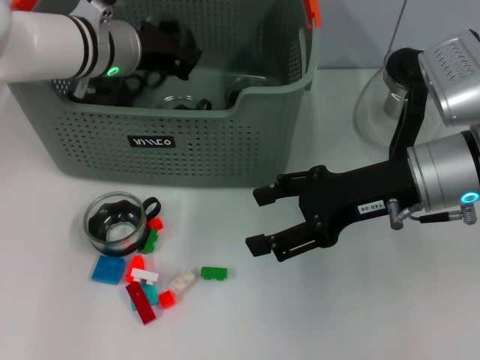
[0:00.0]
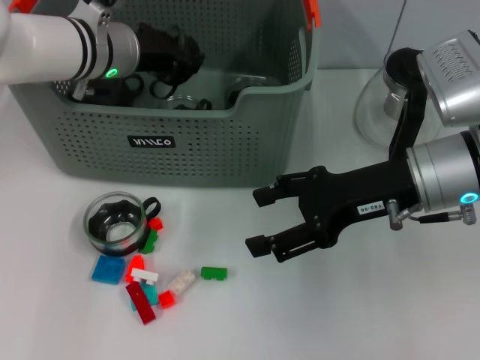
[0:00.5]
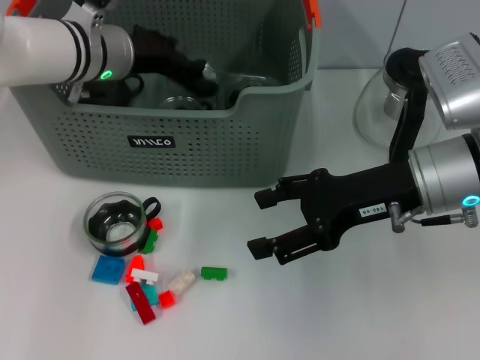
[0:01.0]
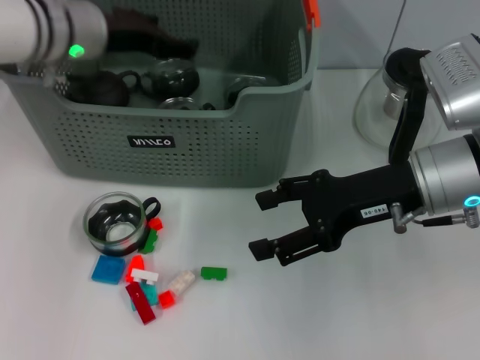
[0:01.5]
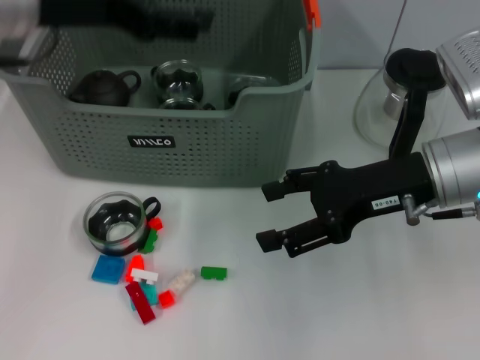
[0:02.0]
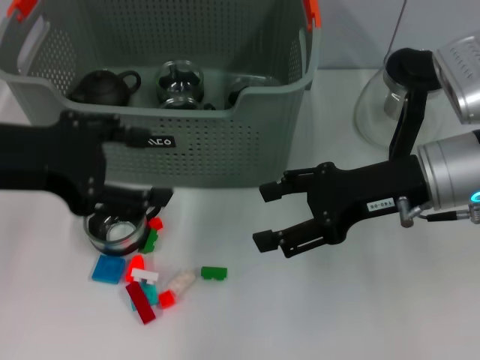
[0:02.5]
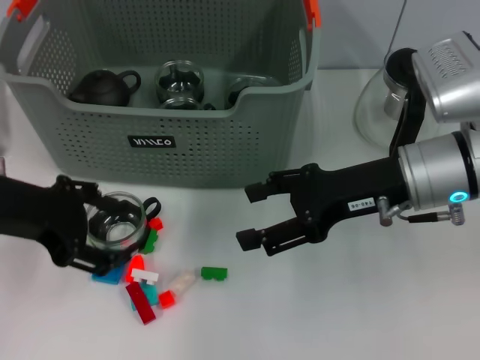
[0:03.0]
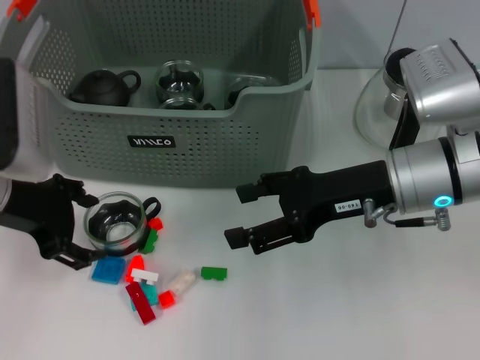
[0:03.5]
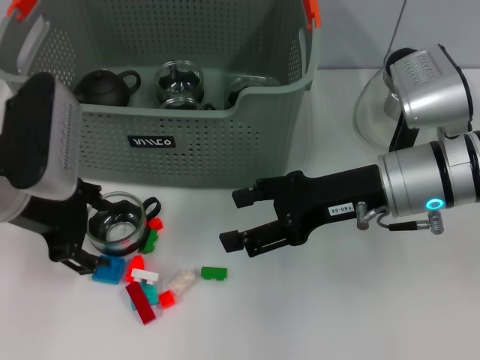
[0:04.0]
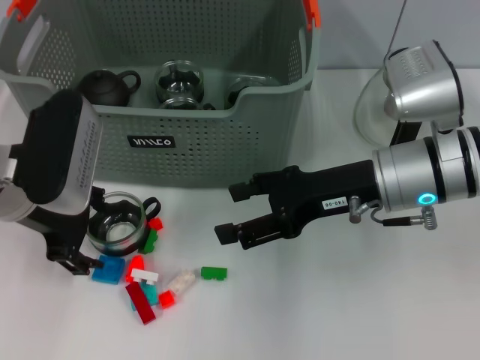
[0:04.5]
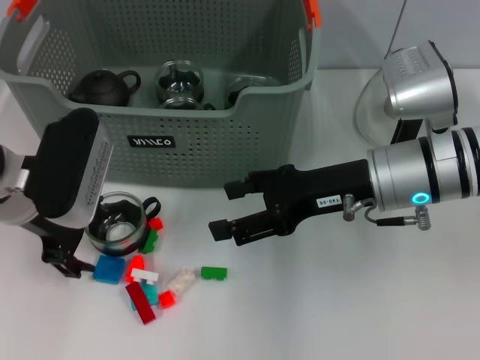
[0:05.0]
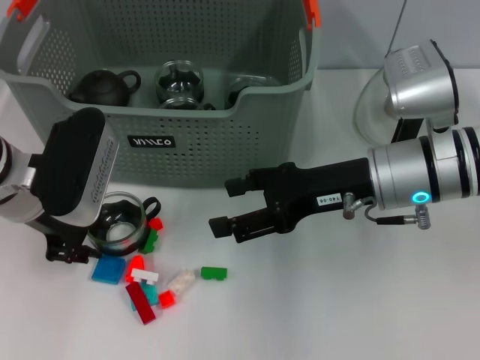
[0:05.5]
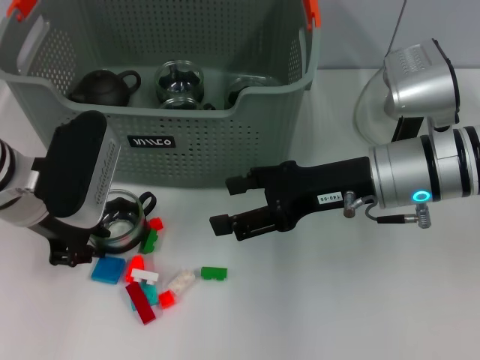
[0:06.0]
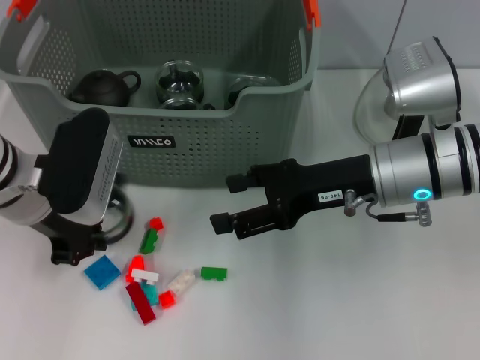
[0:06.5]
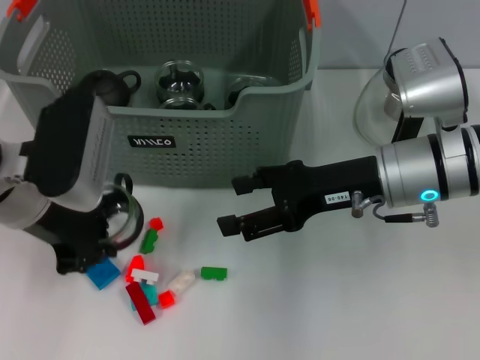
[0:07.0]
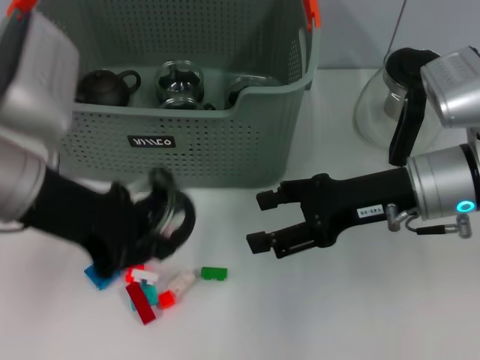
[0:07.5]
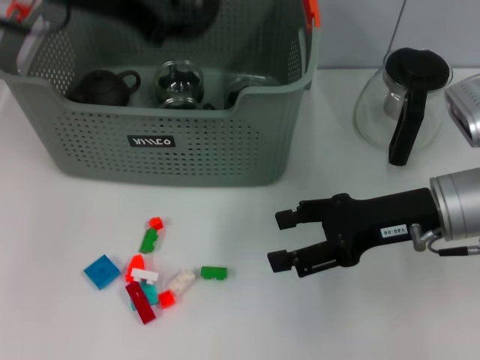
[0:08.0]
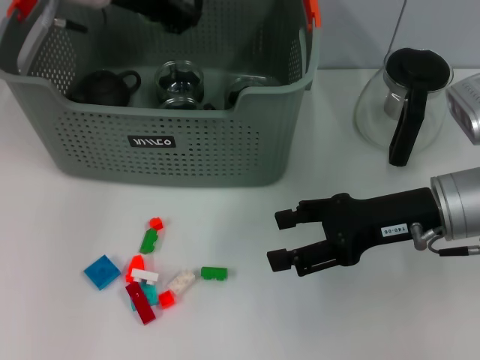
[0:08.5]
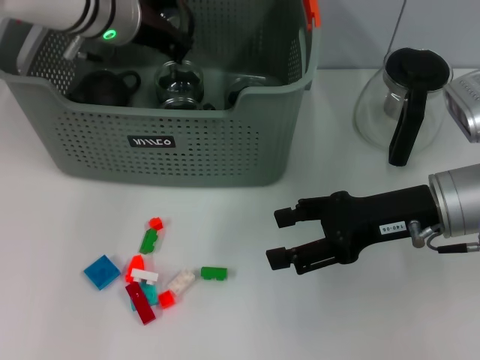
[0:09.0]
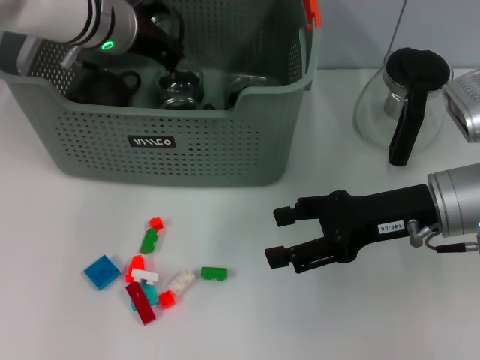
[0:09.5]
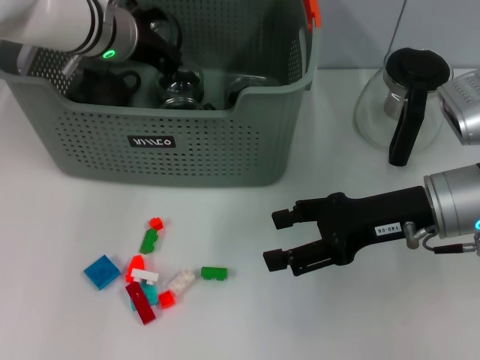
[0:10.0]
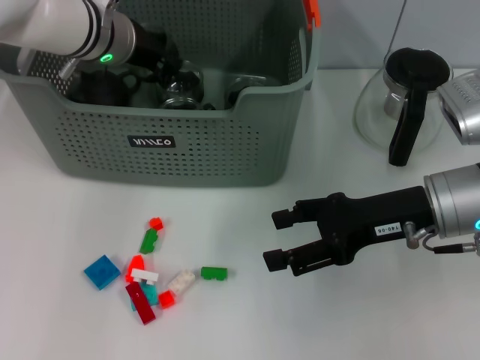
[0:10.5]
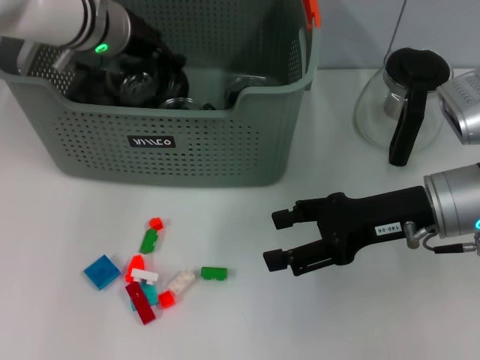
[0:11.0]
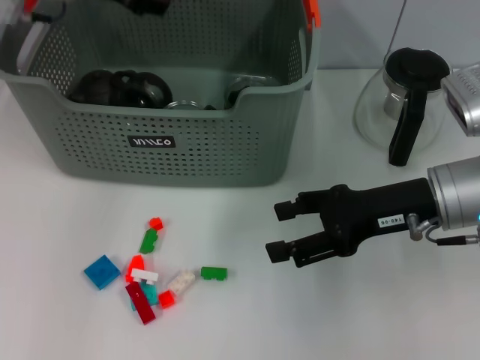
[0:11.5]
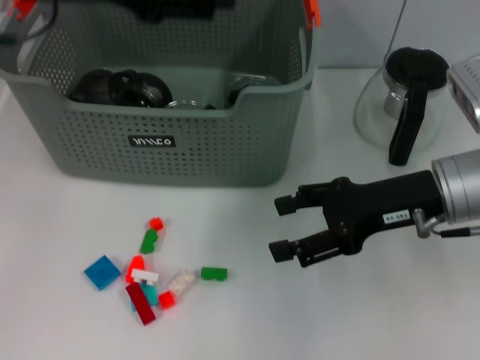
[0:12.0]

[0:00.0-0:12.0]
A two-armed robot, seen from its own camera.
Task of the whole recording: pick up the teacup on the table and place it into the storage bin, pick up the block on the table and place it into the storage bin.
Step, 0:02.0 to 0:06.0: Grasp the cup with left gripper.
Step, 0:06.5 to 0:11.0: Place the cup in the storage box with left gripper.
0:00.0 to 0:02.0: The left gripper goes about 15 cm upward and backward, and opens.
0:02.0 to 0:04.0: The left gripper travels downward by about 10 cm.
0:04.0 to 0:06.0: The left gripper closes up.
0:06.0 to 0:08.0: The right gripper shifts approximately 5 cm to the right. The left gripper goes about 15 cm upward.
0:08.0 to 0:10.0: The left gripper moves downward and forward, about 15 cm.
0:10.0 to 0:12.0: The left gripper shifts approximately 20 cm backward and upward, and opens.

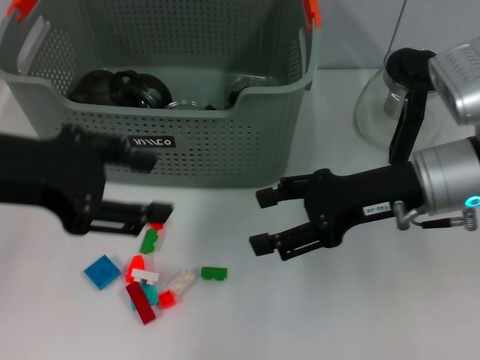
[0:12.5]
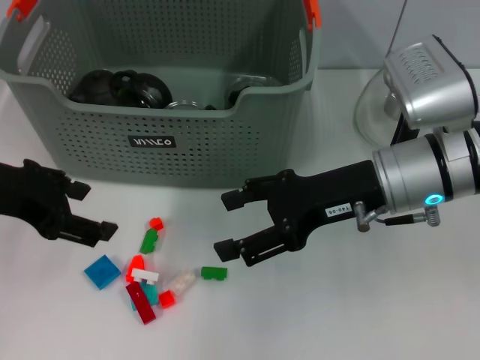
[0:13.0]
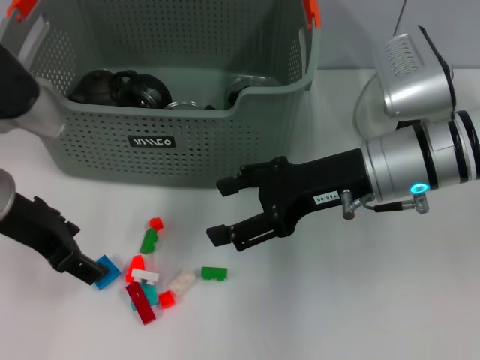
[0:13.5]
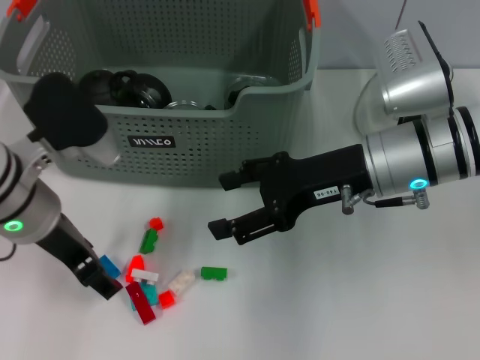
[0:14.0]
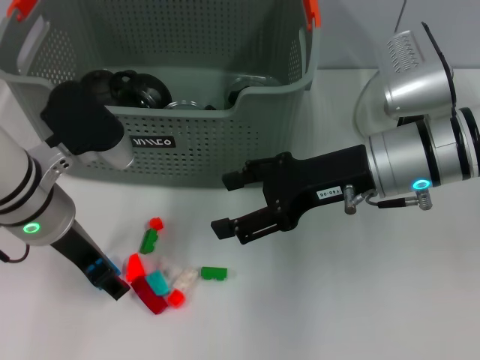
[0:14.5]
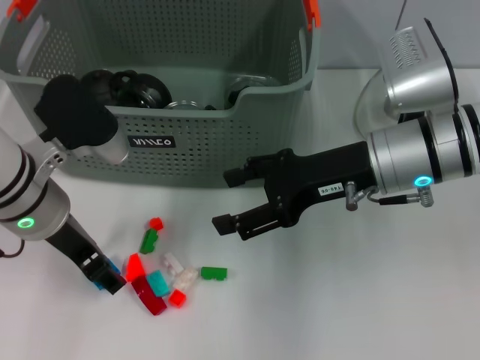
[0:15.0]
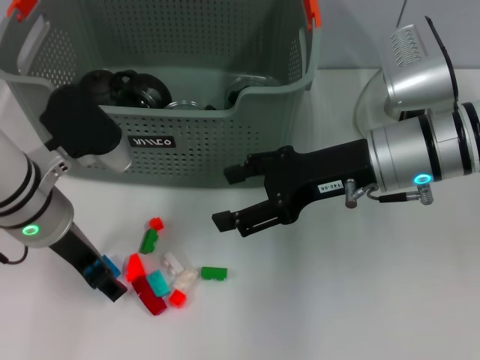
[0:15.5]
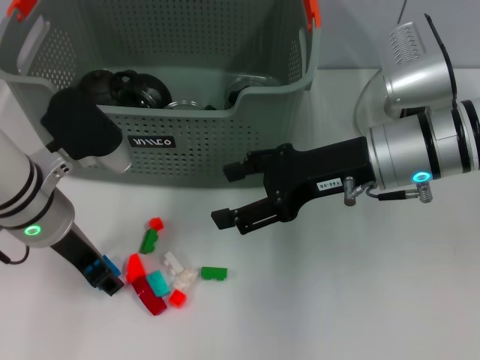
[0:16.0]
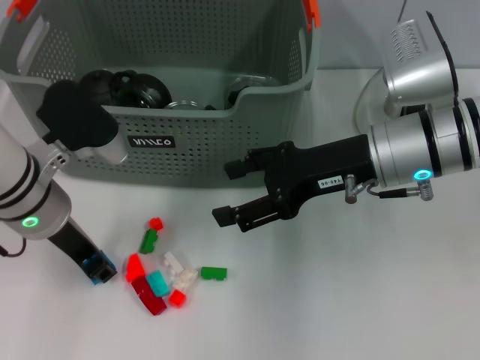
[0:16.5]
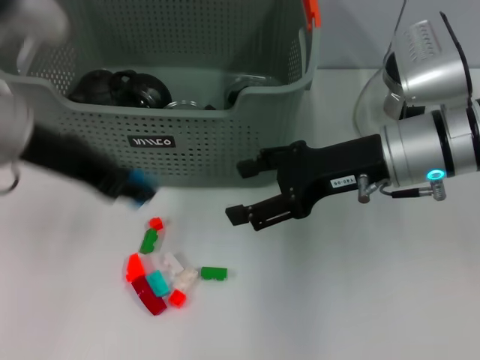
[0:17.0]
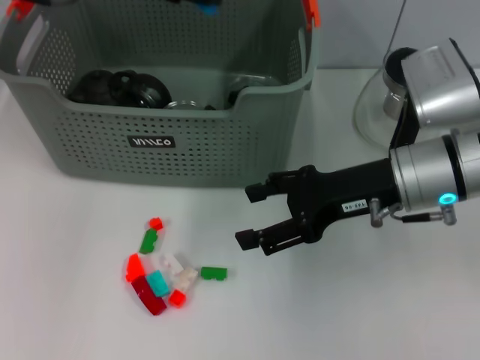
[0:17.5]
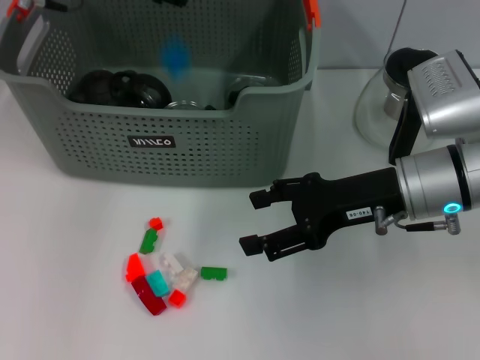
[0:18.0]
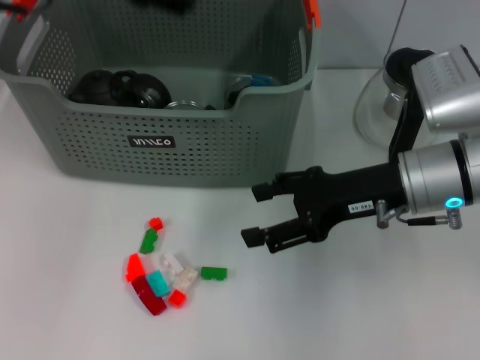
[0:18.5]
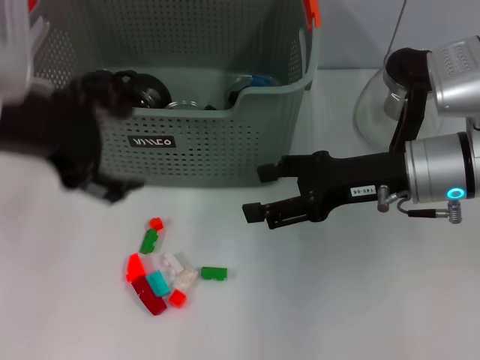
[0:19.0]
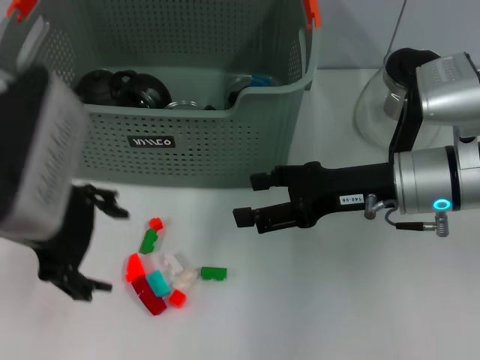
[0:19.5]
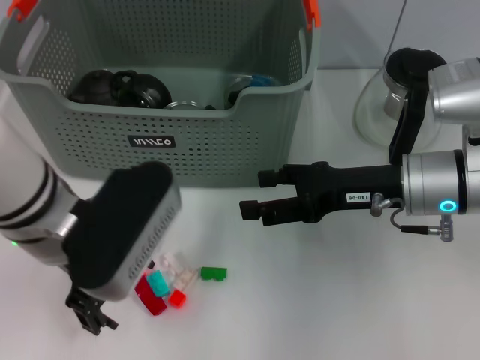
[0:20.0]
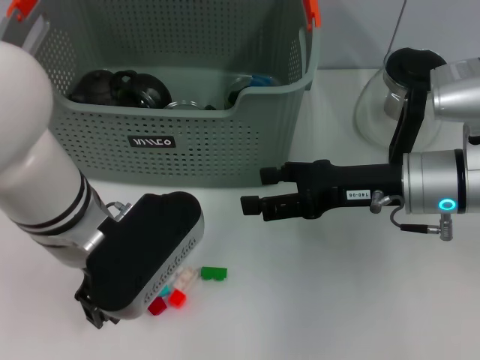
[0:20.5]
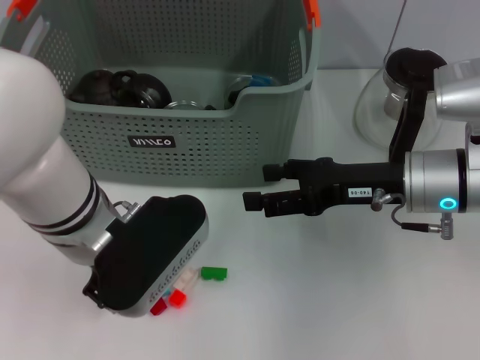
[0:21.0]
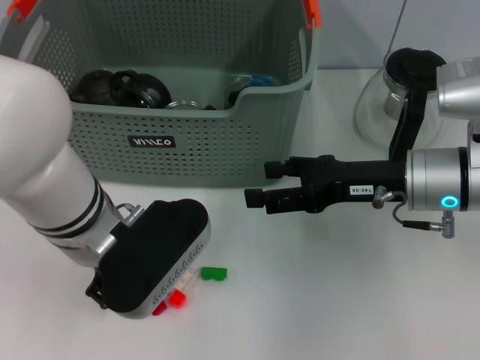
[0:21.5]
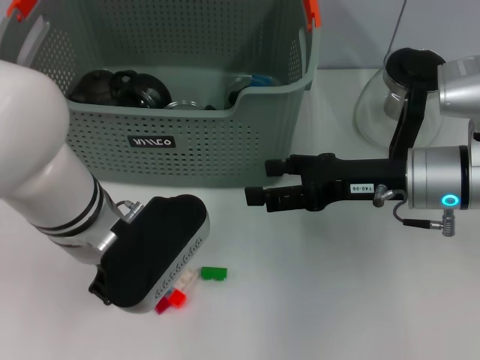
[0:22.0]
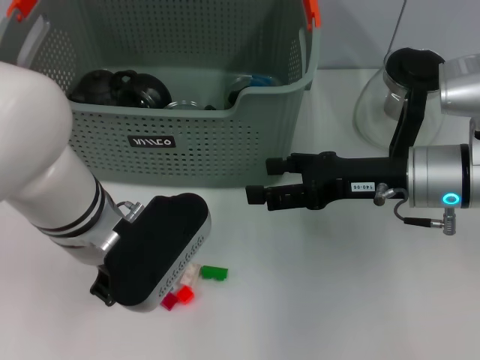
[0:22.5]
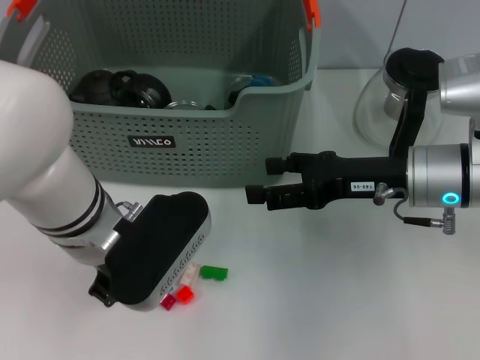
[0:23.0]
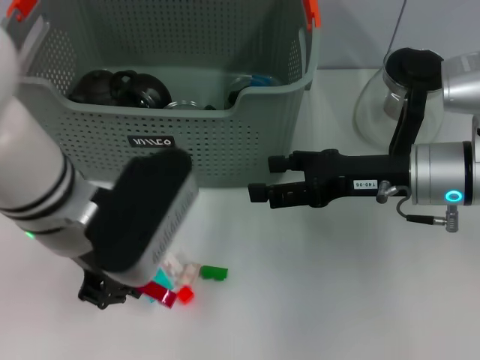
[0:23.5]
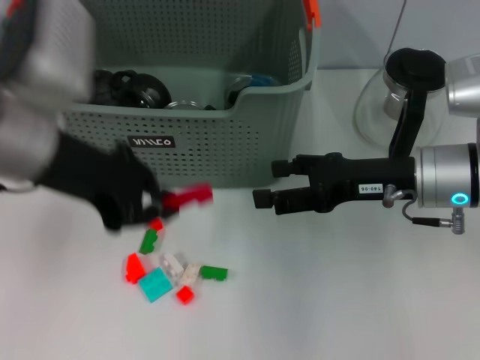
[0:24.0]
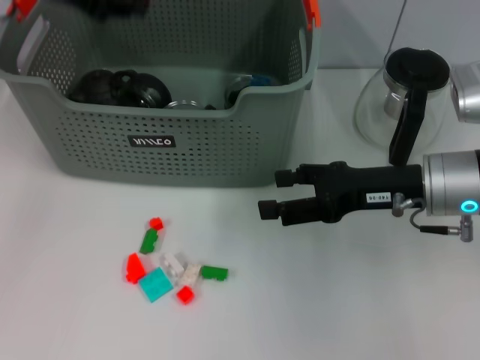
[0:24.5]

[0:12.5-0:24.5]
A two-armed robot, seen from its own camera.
Task of the whole recording: pick up the teacup on the table and place it into the storage bin, pick up the block on the table and place it into the storage bin.
Step, 0:12.5 to 0:16.5: Grasp the dark blue block with left gripper.
Step, 0:17.0 to 0:18.0: Place the dark blue block in the storage box with left gripper.
Step, 0:18.5 to 0:23.0: Grasp the red block with left gripper.
0:12.5 to 0:14.5: The left gripper moves downward, forward and to the right, some 15 cm.
0:14.5 to 0:16.5: The left gripper closes up.
0:16.5 to 0:18.5: The left gripper goes some 20 cm upward, and opens.
0:18.5 to 0:20.5: The left gripper is displaced downward and backward by roughly 20 cm.
0:20.5 to 0:22.5: The left gripper closes.
0:22.5 to 0:24.5: The left gripper goes approximately 20 cm upward, to the left and forward.

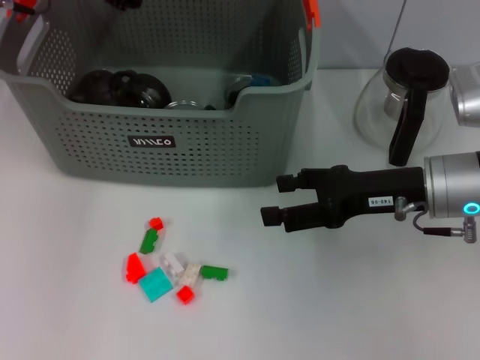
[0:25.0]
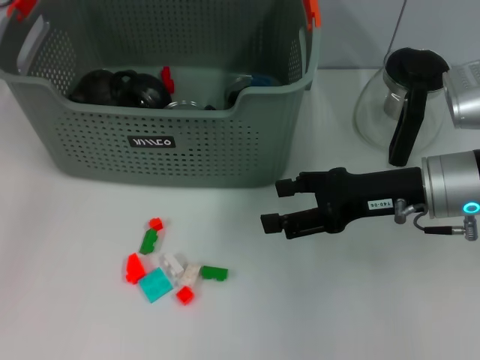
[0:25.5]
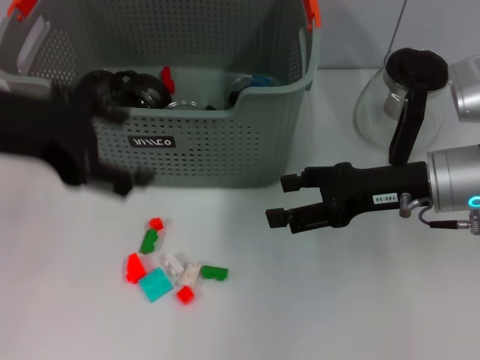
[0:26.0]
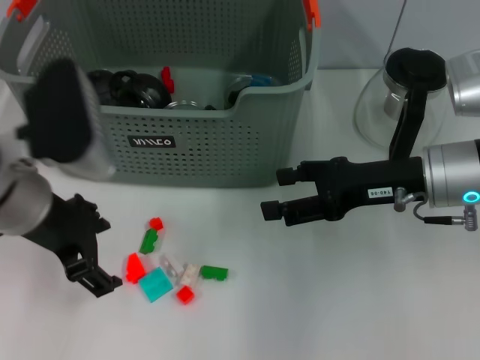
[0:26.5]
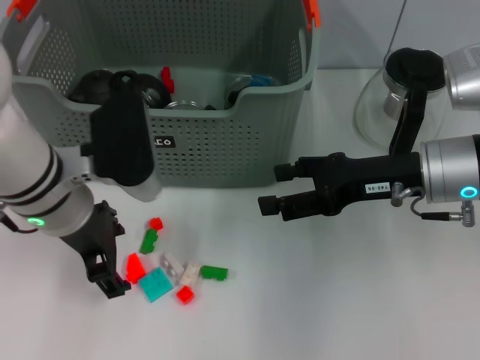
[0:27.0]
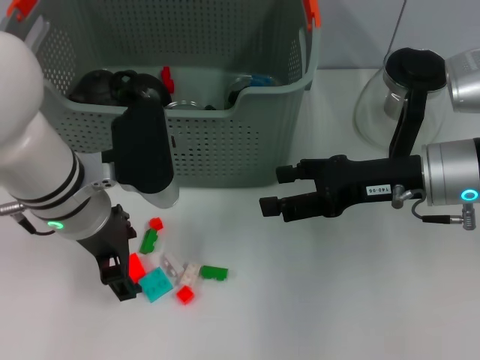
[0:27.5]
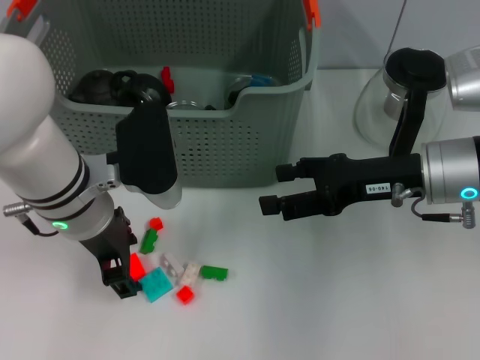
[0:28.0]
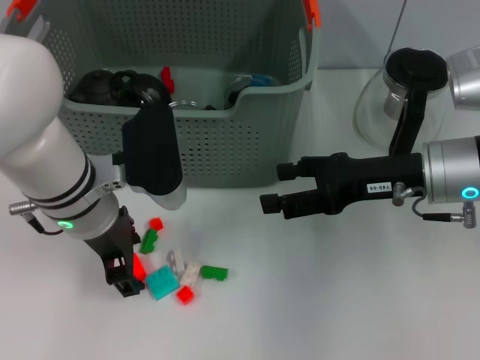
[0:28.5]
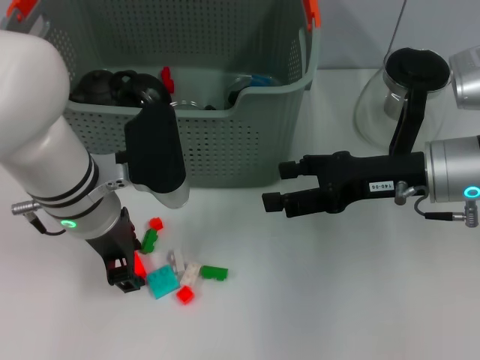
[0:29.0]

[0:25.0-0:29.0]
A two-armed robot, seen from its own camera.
Task of the whole recording: pick up the teacup on the table and place it into the storage bin, pick up the block on the table and place it into the storage bin.
0:25.0 to 0:27.0: The left gripper moves backward and downward, roughly 20 cm, and opens.
0:27.0 to 0:29.0: There are only small adjustments of the grippers.
